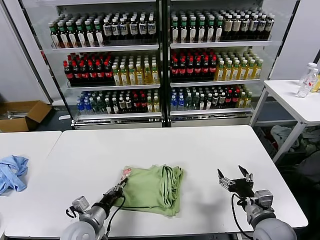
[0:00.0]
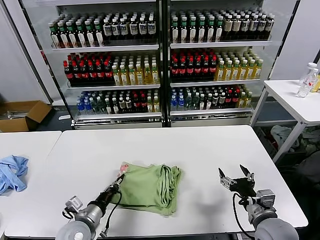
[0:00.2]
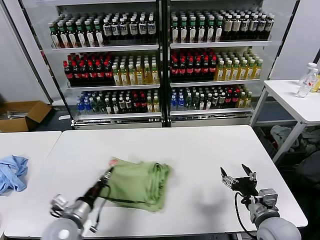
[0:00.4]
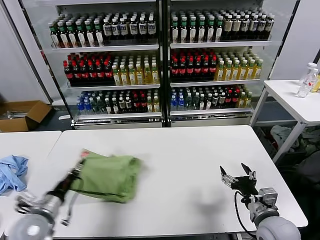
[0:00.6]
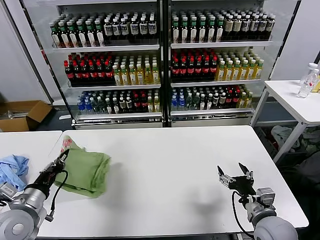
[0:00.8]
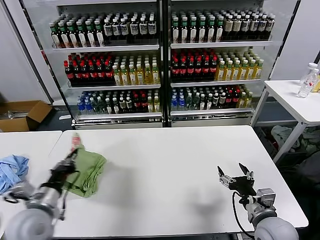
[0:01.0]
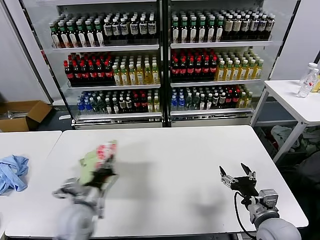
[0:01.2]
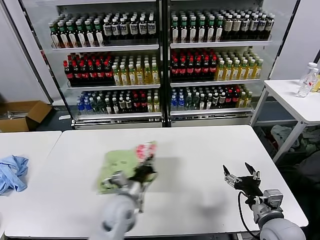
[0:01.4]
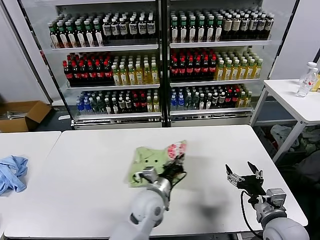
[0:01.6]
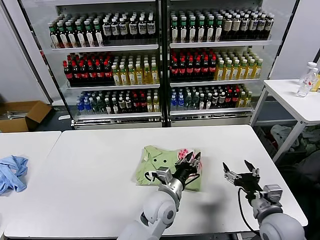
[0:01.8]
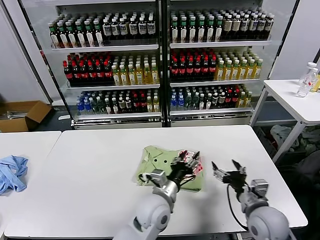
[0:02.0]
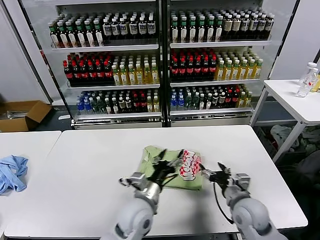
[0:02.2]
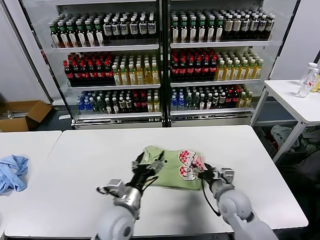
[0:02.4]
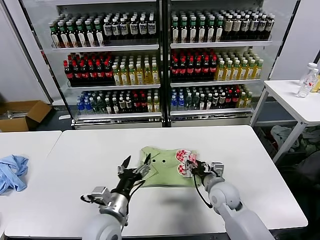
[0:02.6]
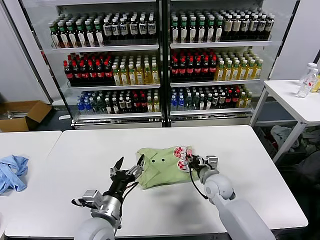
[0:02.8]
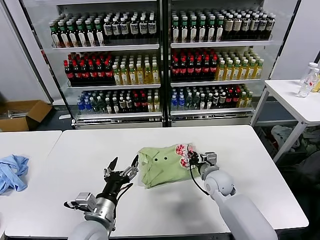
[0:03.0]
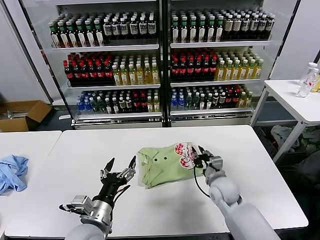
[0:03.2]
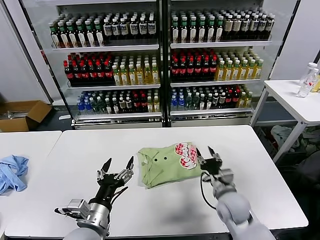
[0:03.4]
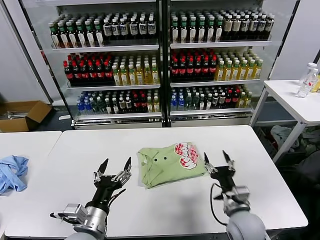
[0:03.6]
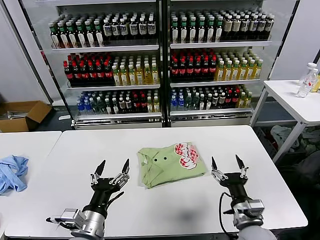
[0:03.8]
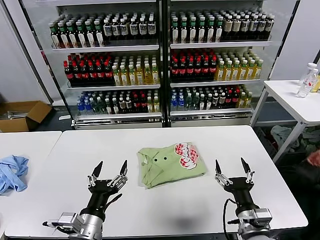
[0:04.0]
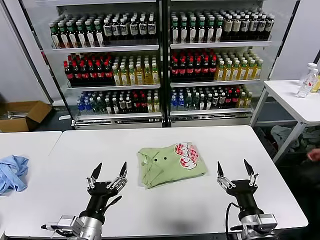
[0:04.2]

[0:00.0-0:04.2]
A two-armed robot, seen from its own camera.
Task of the whole recording: fold and organize the clothes.
Step, 0:00.0 to 0:01.8: Flip the folded clothes over with left gripper.
Step, 0:02.0 to 0:03.2: Drag the clothes to the center of the table.
0:00.0 to 0:01.4: The left gripper heads to the right and forward, covering approximately 15 cm.
0:01.4 to 0:02.8: The right gripper is displaced forward, to the left and downward by about 20 cm, and closes up. The left gripper heads backward, covering about 5 cm, travels to the right and back again, some 10 cm each way, and opens up.
0:02.8 to 0:04.2: The left gripper shifts about 5 cm backward; the right gripper heads backward, covering approximately 20 cm, and opens its fingers.
